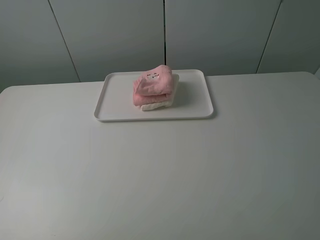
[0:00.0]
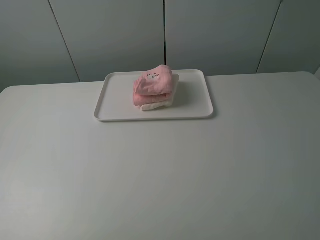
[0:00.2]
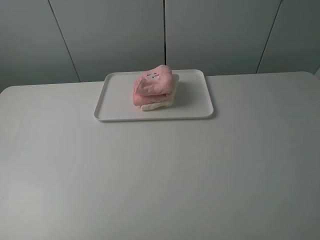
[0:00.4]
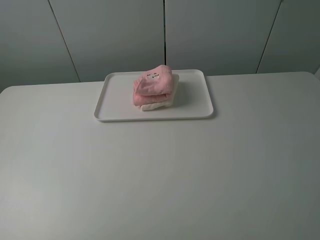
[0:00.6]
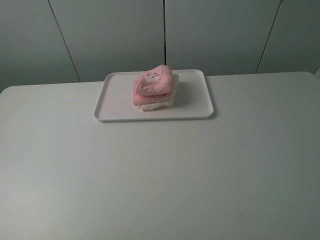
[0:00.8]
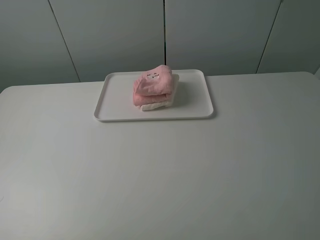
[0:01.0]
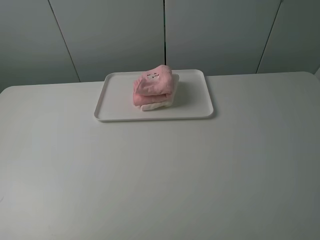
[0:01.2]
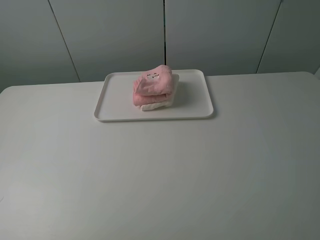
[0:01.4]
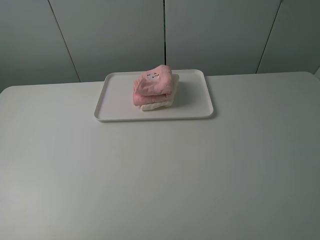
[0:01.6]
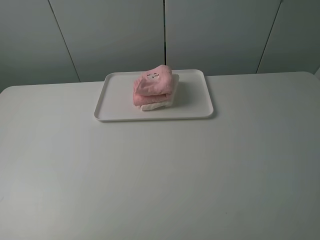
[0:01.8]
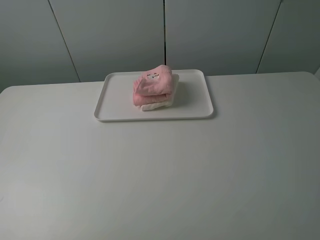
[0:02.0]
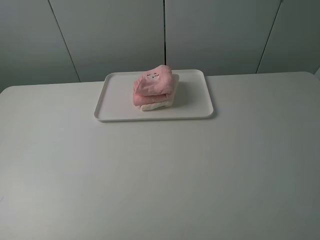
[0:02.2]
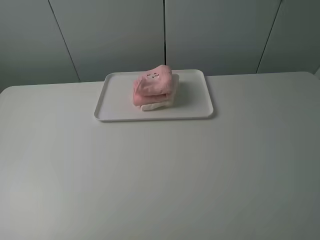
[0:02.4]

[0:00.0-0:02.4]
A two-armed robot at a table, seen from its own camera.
Task of the whole recording: fold one of the towels by two grippers and place it on the tray,then fold another towel by two grippers and place it on the folded towel.
0:01.2 to 0:02.4: The two grippers keep their place.

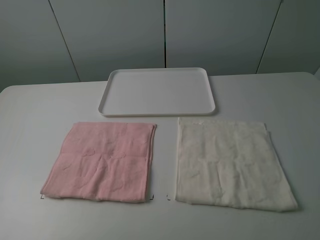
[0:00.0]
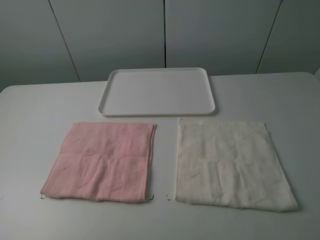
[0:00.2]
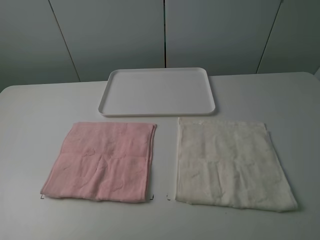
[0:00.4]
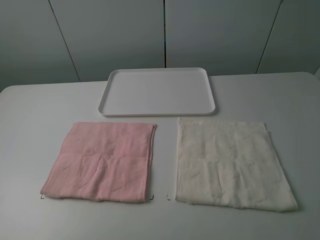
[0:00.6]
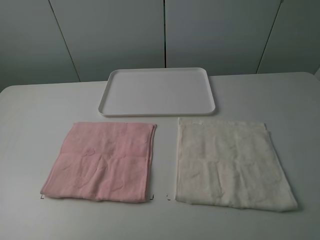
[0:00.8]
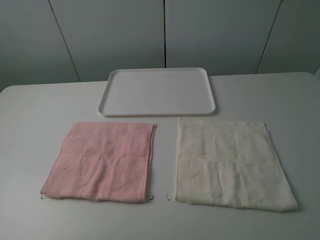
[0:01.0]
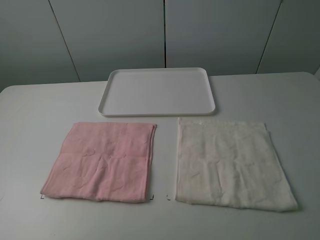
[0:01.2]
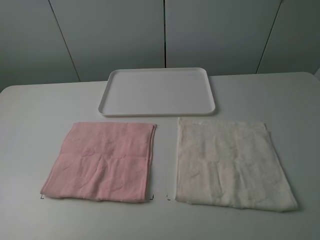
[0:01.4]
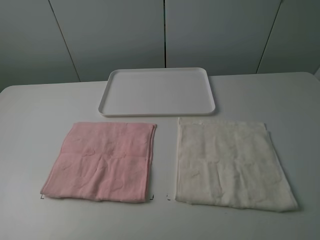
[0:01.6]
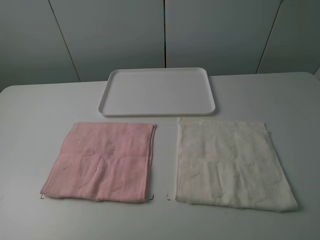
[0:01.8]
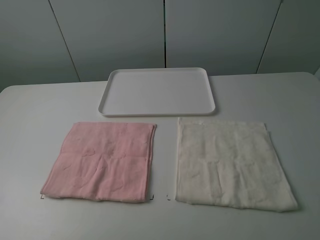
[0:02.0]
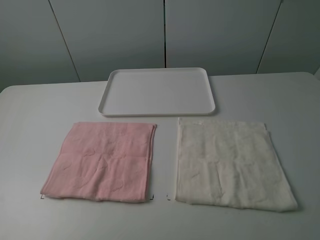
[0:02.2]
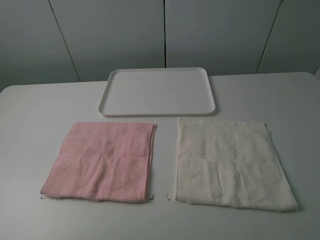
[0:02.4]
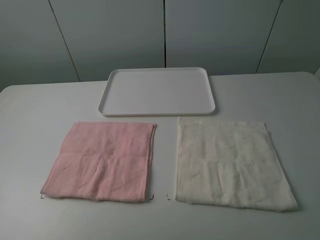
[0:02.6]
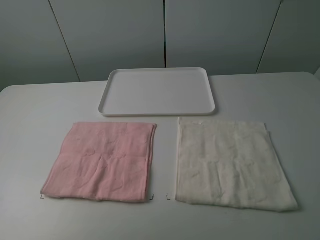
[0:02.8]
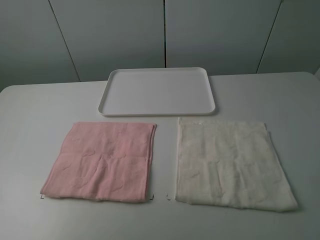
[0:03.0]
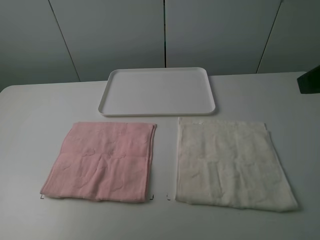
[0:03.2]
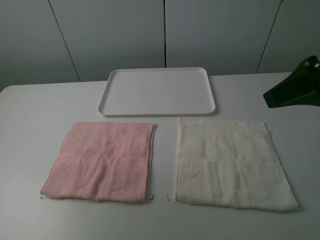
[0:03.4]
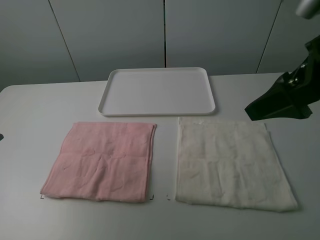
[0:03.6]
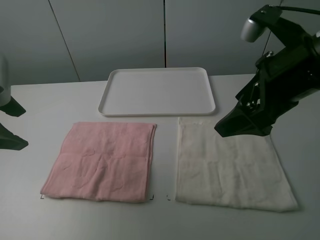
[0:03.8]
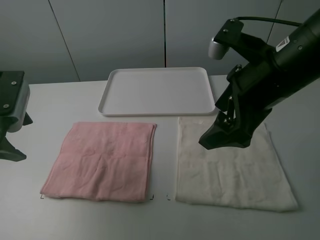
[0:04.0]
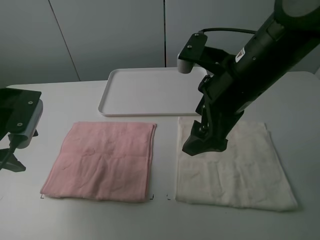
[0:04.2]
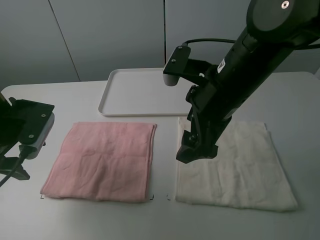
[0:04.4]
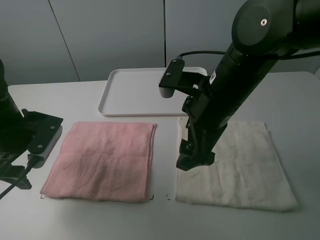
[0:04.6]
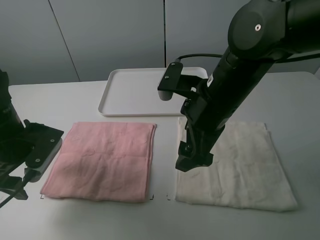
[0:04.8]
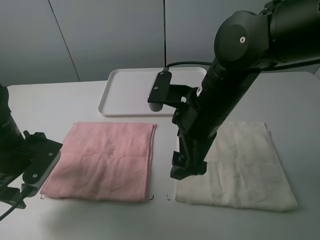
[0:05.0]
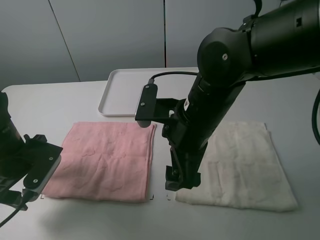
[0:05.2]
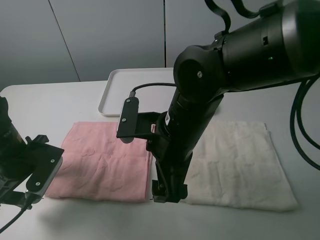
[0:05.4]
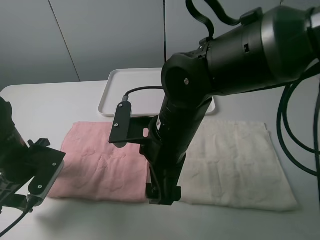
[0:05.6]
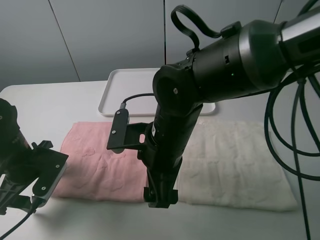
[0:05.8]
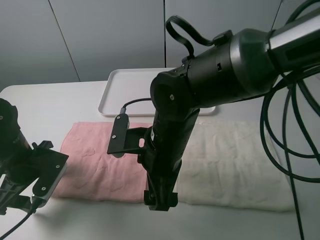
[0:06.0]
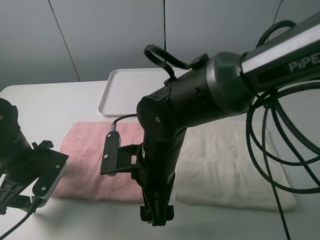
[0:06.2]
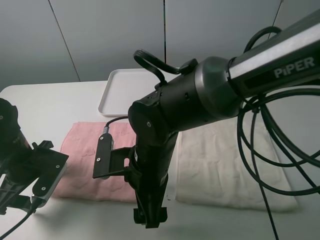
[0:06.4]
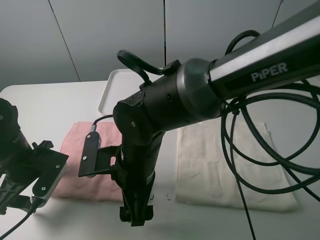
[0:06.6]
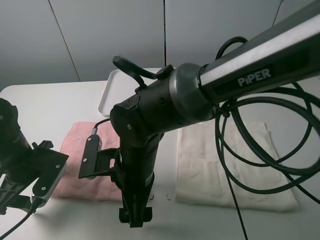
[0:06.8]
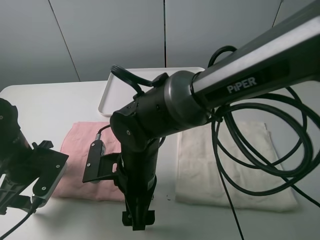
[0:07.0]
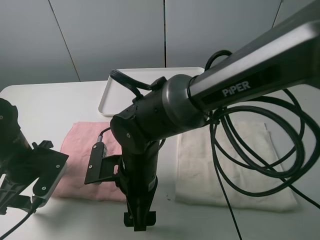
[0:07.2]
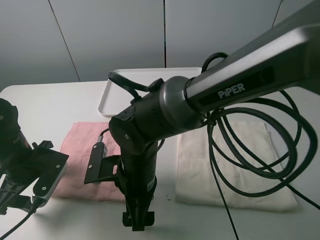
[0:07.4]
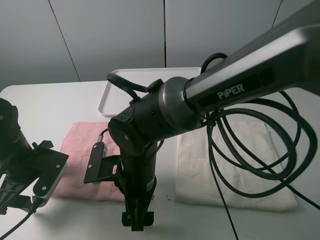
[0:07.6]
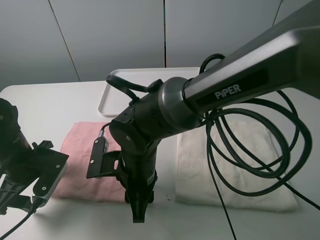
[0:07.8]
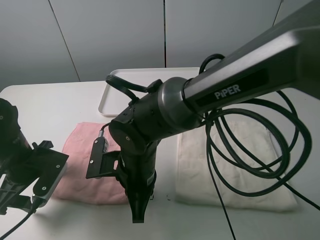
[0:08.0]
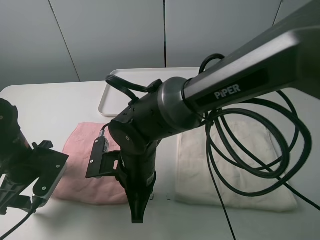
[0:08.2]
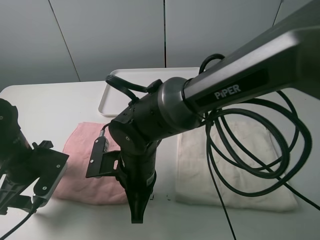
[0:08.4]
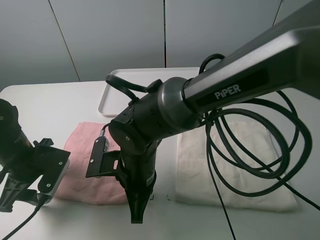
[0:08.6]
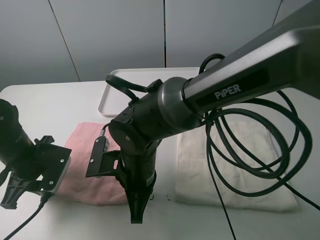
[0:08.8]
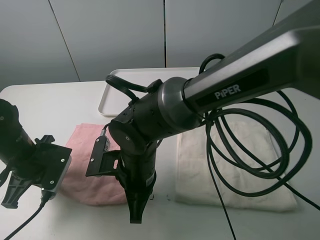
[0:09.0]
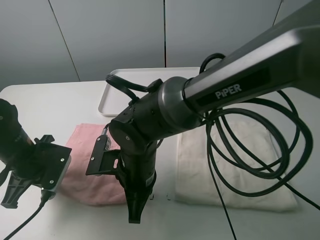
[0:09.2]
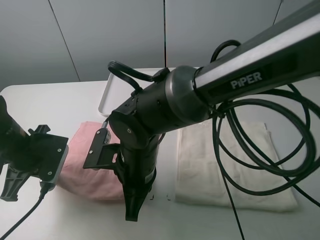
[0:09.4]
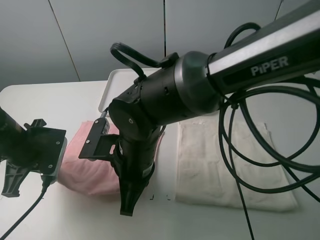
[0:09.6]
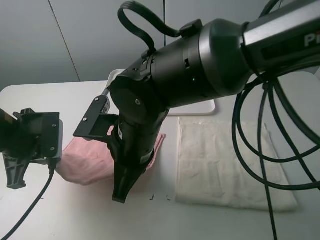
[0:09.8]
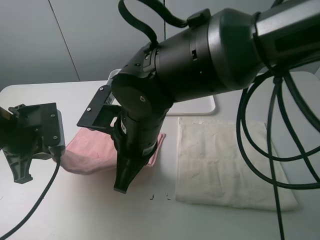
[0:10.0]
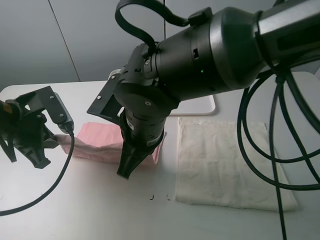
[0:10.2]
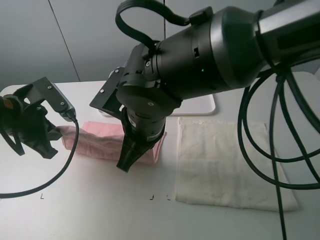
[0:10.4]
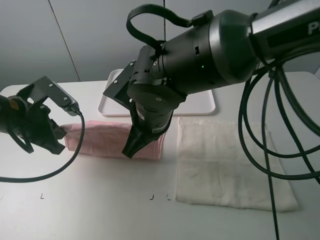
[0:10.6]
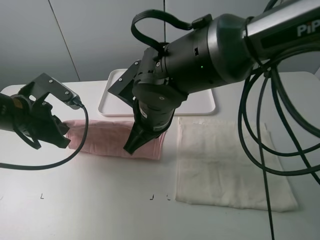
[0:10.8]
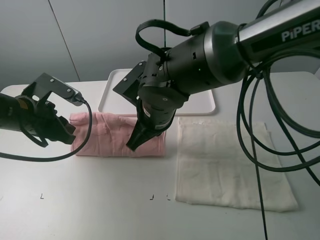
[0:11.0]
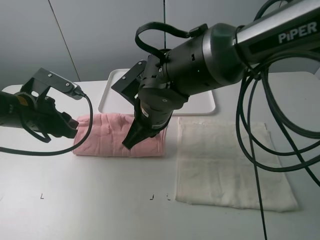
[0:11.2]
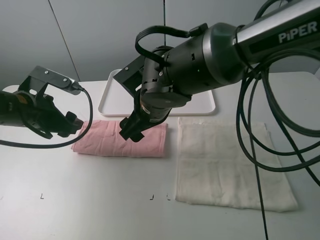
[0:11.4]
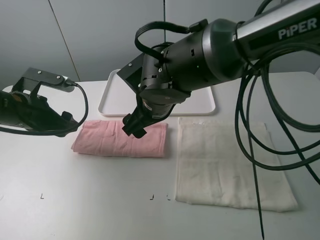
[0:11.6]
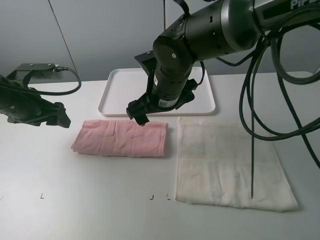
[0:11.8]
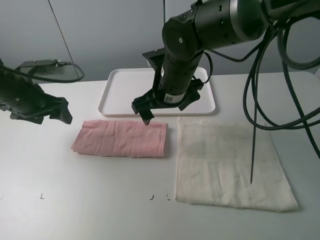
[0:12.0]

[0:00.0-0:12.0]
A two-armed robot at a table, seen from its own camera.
Task of the whole recording: fold one of the towels by two grippers and place it on the tray,then fold another towel by two grippers and place it on the folded towel.
Step, 0:00.0 to 0:09.4: Grasp the pink towel with the left gripper.
Step, 0:09.6 to 0:11.4: Fold the pink towel upwards with the left gripper.
0:00.0 to 0:01.6: The two grippers keep their place.
0:03.0 to 0:04.4: The right gripper is displaced to the left, downward and forward by about 25 cm. Meanwhile the left gripper goes roughly 20 cm downward and forward.
0:04.4 to 0:06.0: The right gripper heads downward and to the left, covering roughly 10 cm. The left gripper moves downward, about 10 cm.
0:06.0 to 0:07.6: The right gripper moves some 5 cm.
0:07.6 to 0:09.0: The right gripper closes its fingers. The left gripper closes up.
0:09.0 to 0:10.4: The grippers both shift upward by roughly 10 cm.
0:10.4 to 0:12.0: The two grippers go roughly 10 cm forward. The left gripper opens its fingers. Meanwhile the right gripper opens its fingers.

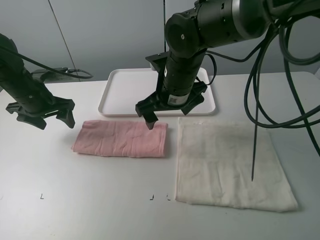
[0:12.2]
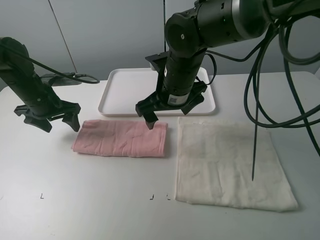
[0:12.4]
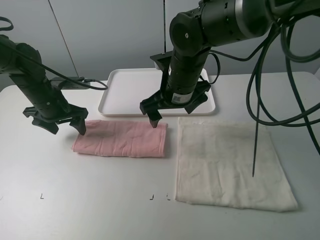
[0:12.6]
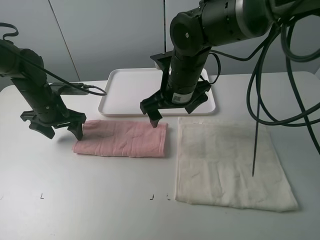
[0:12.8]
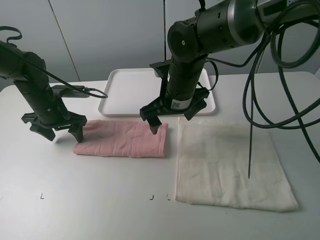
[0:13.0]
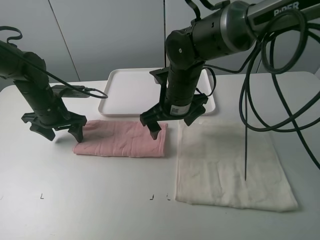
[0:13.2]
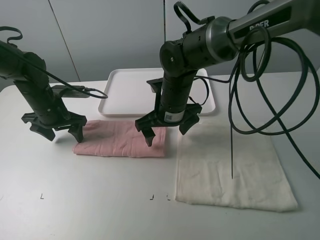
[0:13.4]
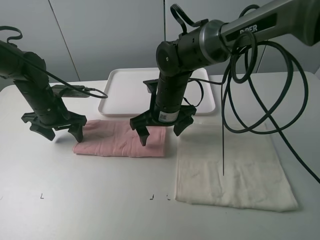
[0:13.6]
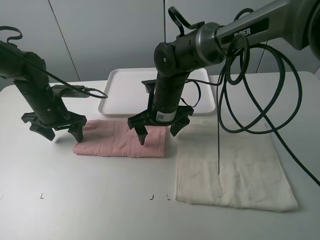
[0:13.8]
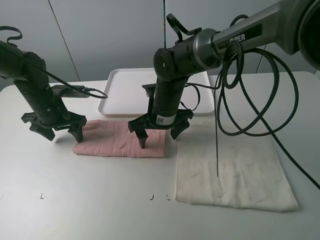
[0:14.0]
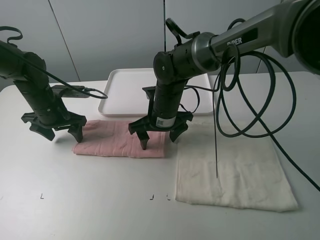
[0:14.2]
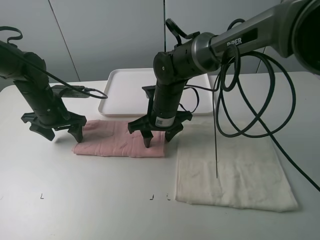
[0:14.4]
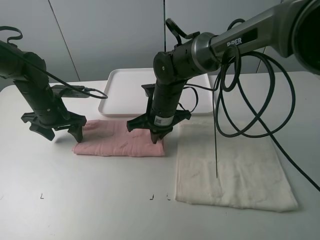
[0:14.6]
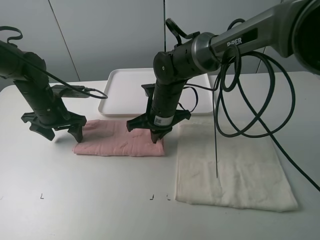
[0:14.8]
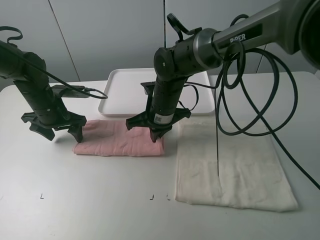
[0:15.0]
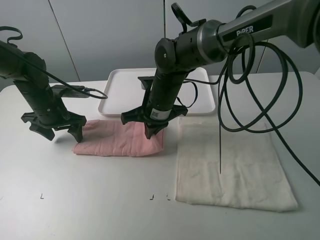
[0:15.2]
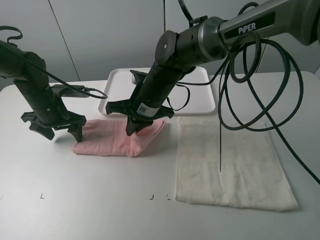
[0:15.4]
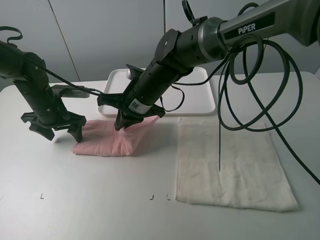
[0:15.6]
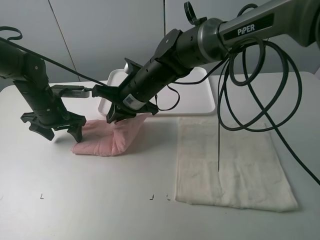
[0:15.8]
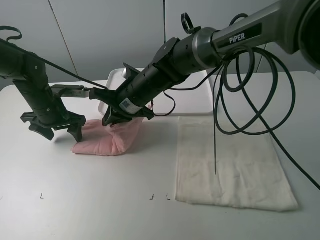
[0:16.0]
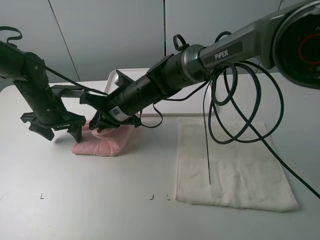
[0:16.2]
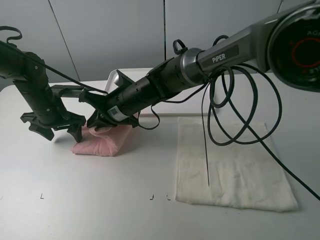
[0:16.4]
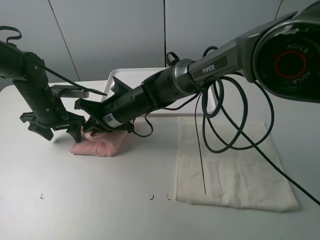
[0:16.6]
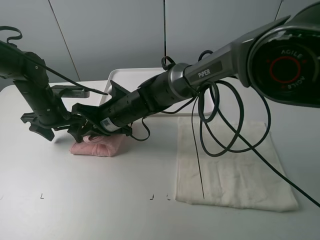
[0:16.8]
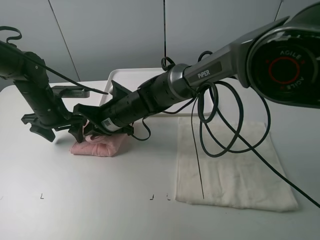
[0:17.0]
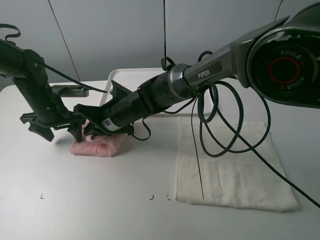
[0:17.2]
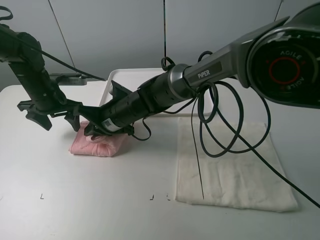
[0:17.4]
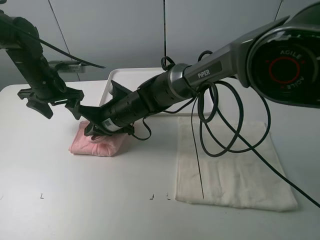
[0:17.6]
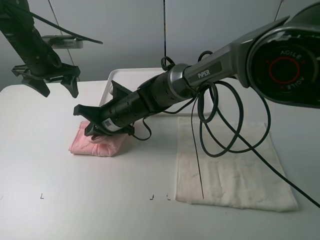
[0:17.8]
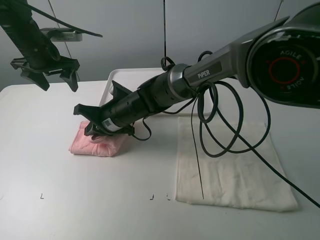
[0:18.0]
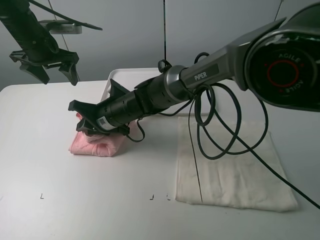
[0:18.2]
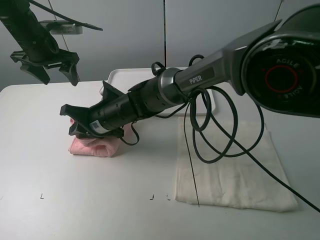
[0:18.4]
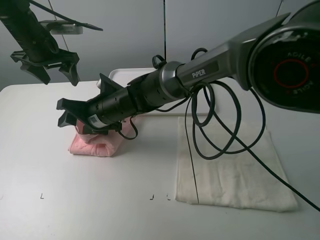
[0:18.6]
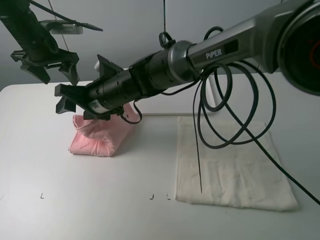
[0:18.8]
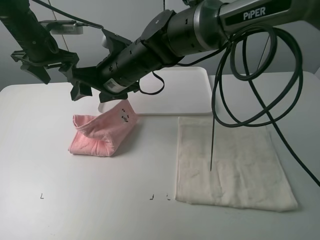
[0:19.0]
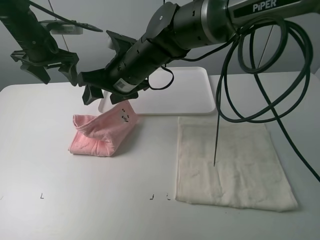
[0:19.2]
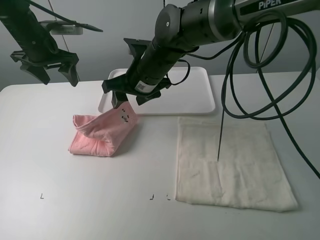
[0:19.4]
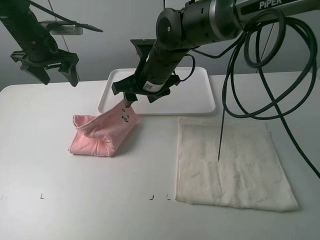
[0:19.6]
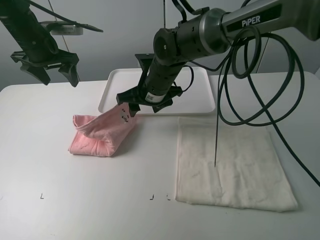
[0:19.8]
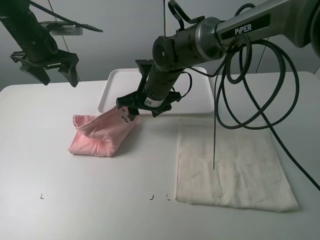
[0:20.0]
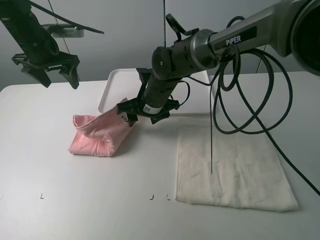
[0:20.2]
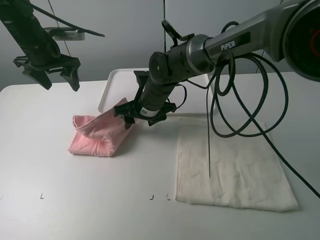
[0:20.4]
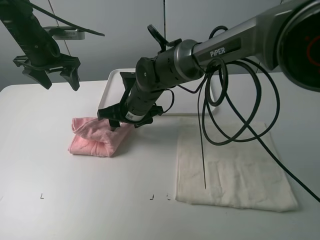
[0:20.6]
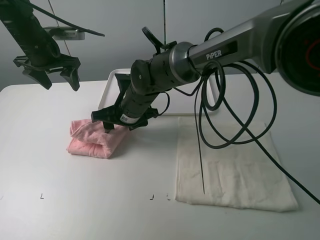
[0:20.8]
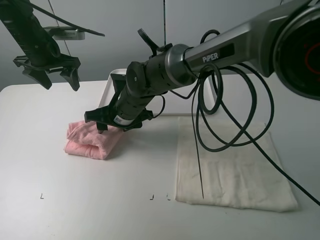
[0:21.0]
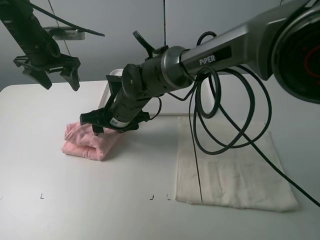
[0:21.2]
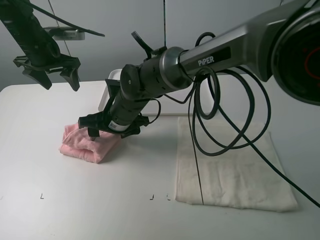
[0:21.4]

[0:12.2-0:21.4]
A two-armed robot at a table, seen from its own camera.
Task of the whole recording: fold one of the towels by two grippers and place it on the tray,then fold another towel by two grippers and place it on the folded towel.
Step, 0:12.2 to 0:13.2: Press the pink towel with the left gripper.
Step, 0:13.4 to 0:14.8: Grasp the pink towel with the right gripper.
0:12.2 to 0:13.8: The right gripper heads downward, covering approximately 5 cm.
0:13.8 to 0:15.2: The right gripper closes up.
0:15.2 to 0:16.8: The right gripper shifts roughly 10 cm to the left.
0:16.8 to 0:18.4: The left gripper is displaced upward and forward by some 15 cm.
0:18.4 to 0:19.8: The right gripper moves to the right, about 10 cm, and opens up.
0:19.8 to 0:21.4: The right gripper heads to the left and backward, covering approximately 10 cm.
